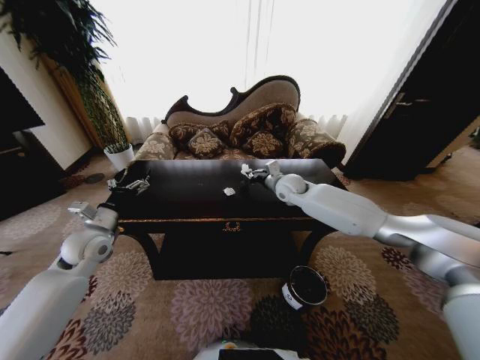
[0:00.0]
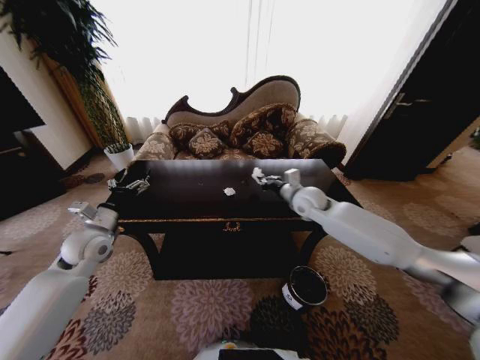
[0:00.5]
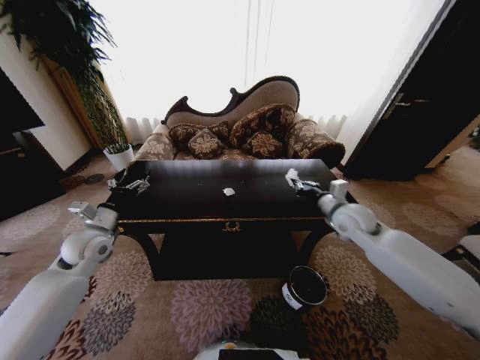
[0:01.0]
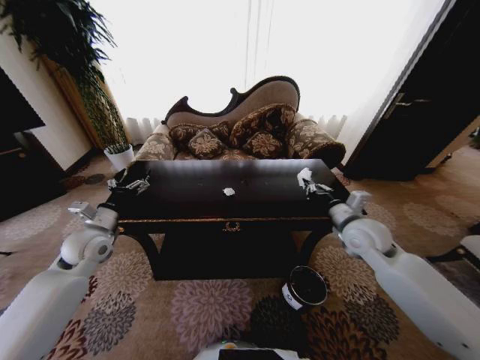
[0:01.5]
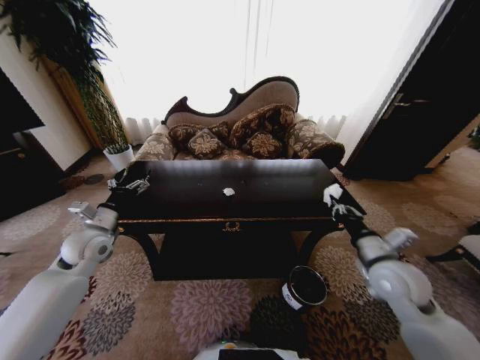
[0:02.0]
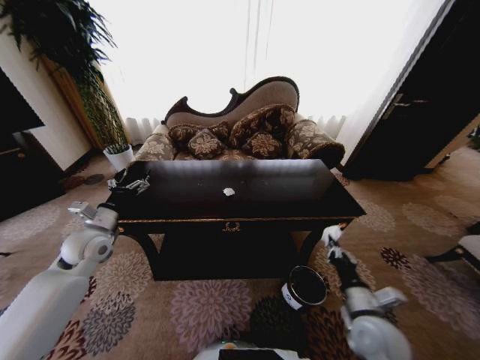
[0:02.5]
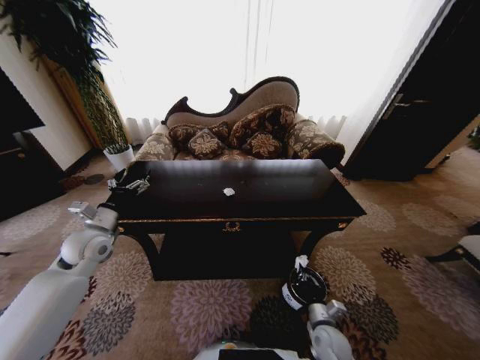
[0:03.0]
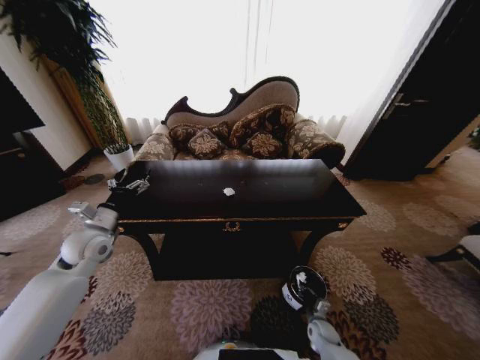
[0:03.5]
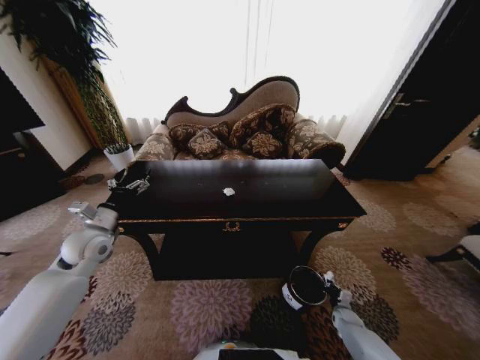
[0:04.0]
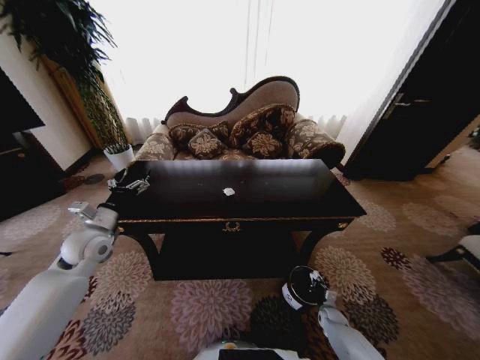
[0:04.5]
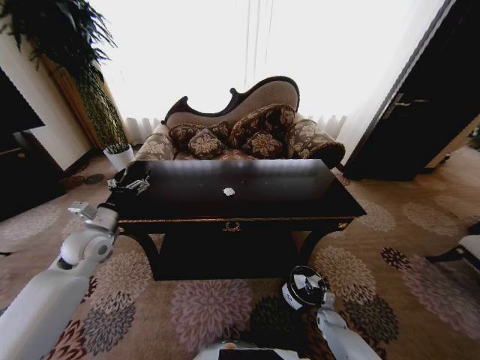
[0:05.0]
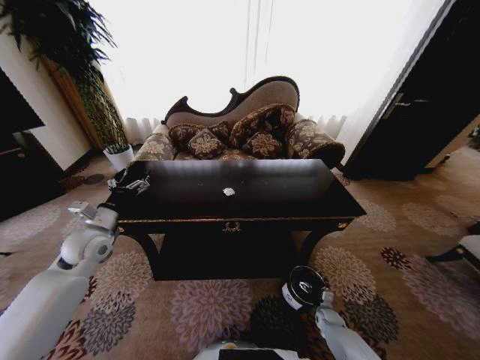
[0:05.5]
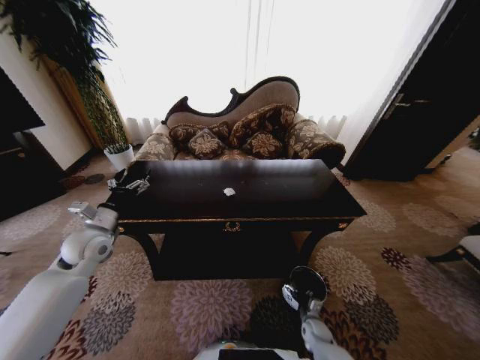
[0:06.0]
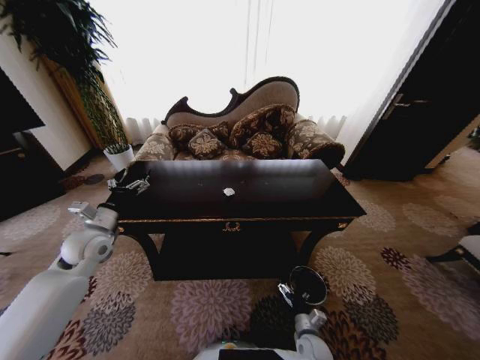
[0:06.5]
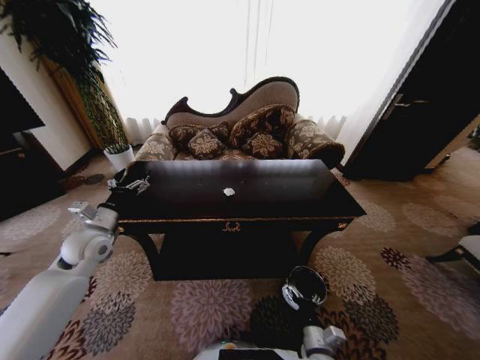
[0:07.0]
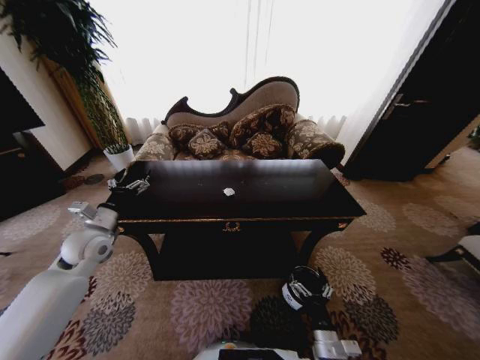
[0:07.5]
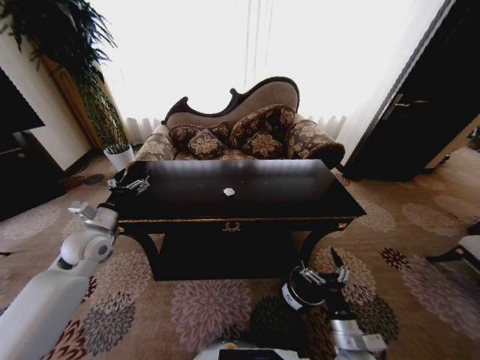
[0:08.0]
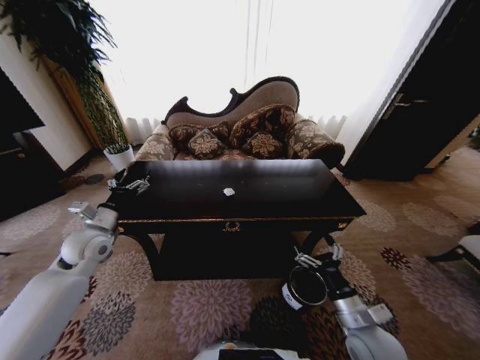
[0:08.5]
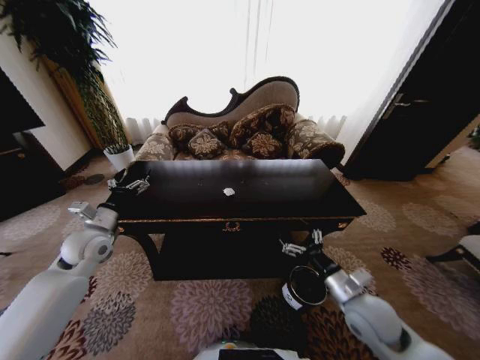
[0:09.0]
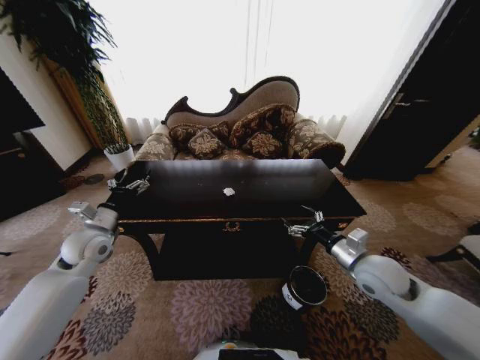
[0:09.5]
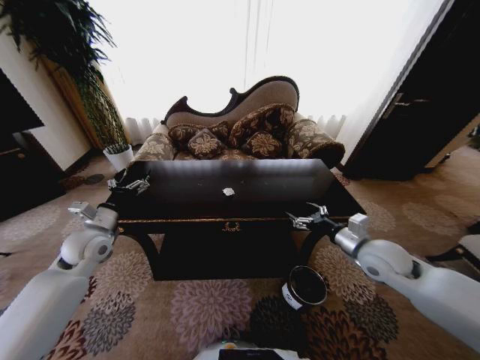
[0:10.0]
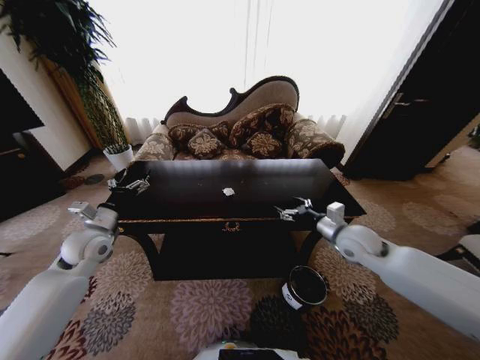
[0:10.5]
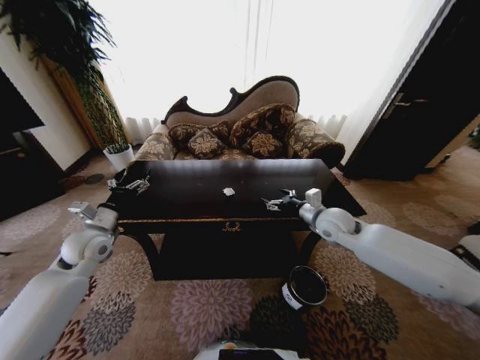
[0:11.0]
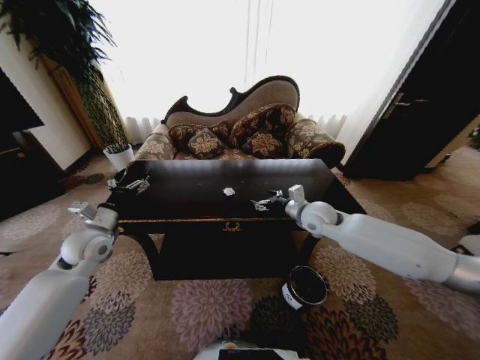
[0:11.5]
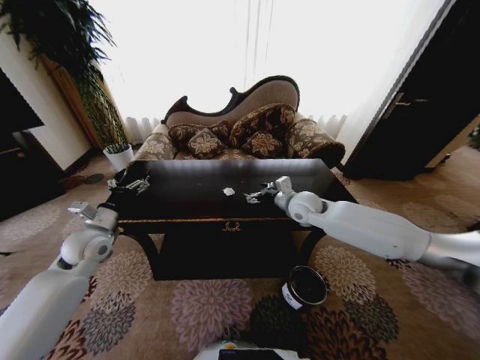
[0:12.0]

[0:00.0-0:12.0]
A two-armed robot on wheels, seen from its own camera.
Task of the whole recording: Move to the front of the table and place the trash on the table into the trash bin.
0:00.0 to 0:02.0: The right gripper goes approximately 35 cm backward and to the right.
0:02.0 to 0:04.0: The right gripper moves downward, some 40 cm.
0:04.0 to 0:06.0: The right gripper heads to the left, covering roughly 15 cm, and opens up.
0:06.0 to 0:08.0: The right gripper heads upward and backward, covering some 25 cm.
0:08.0 to 0:10.0: The right gripper goes about 25 cm forward and upward.
0:10.0 to 0:12.0: The right gripper heads forward and to the left, covering approximately 20 cm.

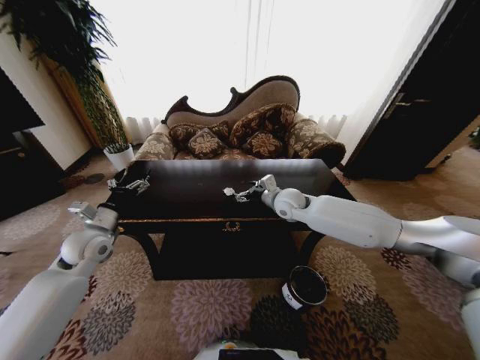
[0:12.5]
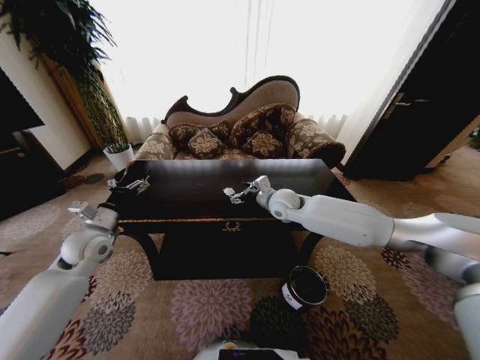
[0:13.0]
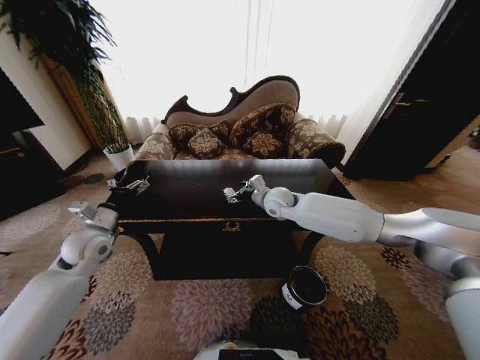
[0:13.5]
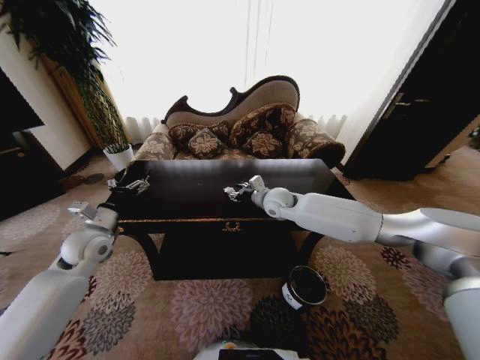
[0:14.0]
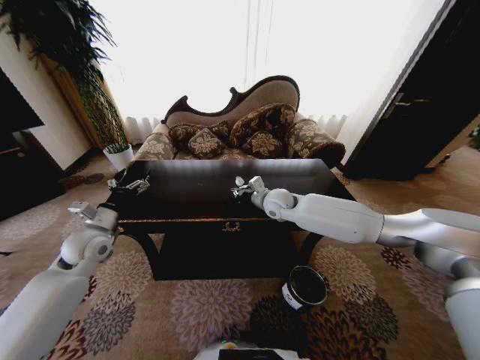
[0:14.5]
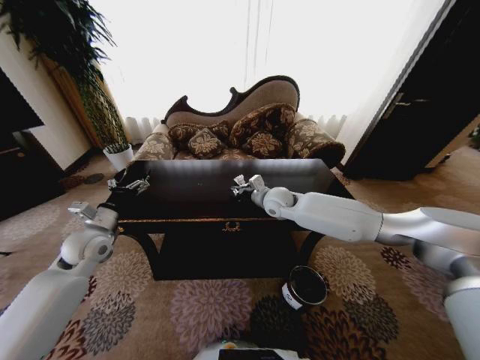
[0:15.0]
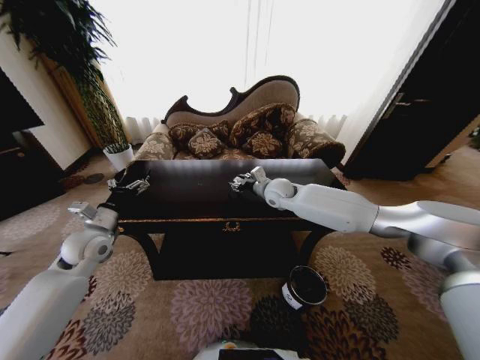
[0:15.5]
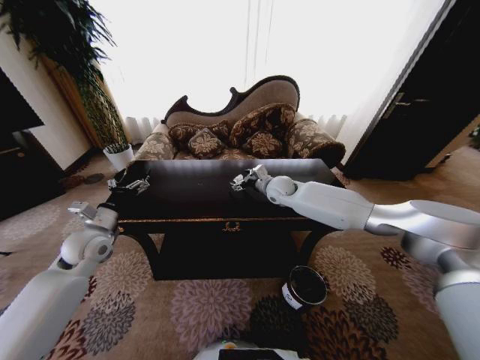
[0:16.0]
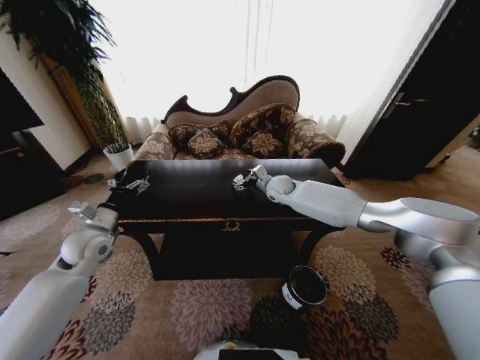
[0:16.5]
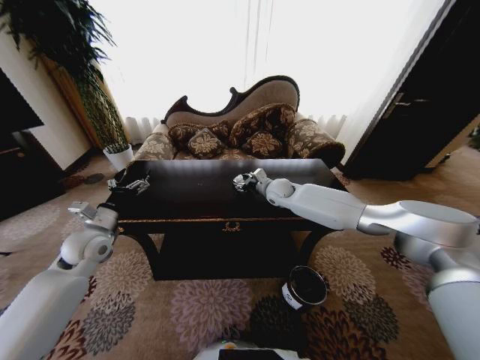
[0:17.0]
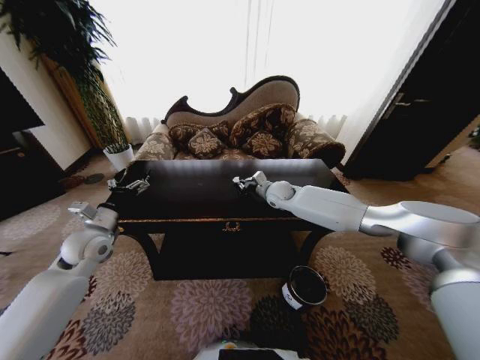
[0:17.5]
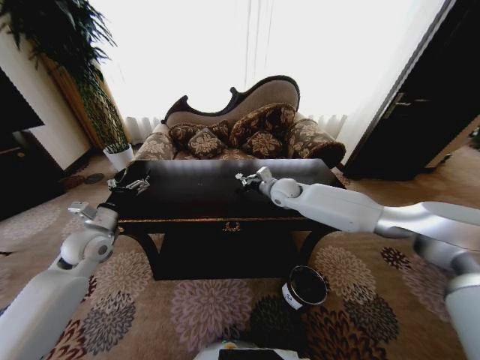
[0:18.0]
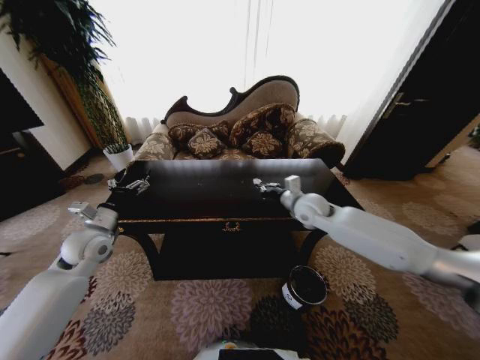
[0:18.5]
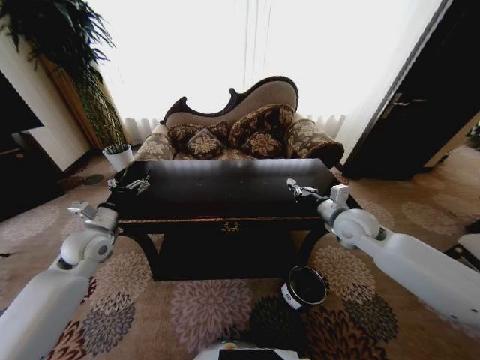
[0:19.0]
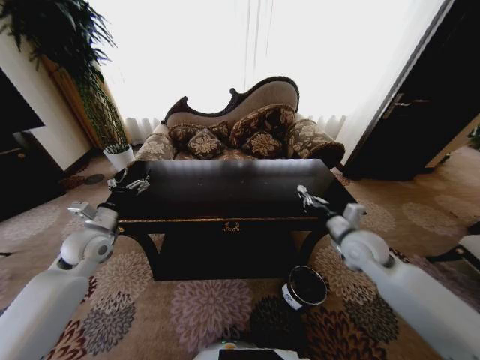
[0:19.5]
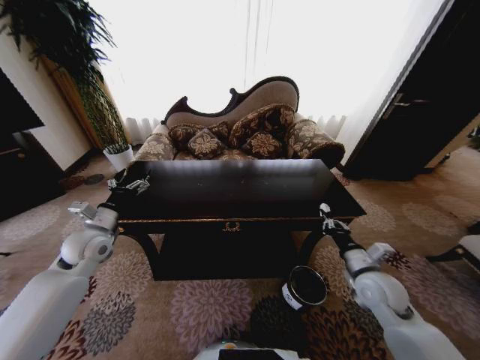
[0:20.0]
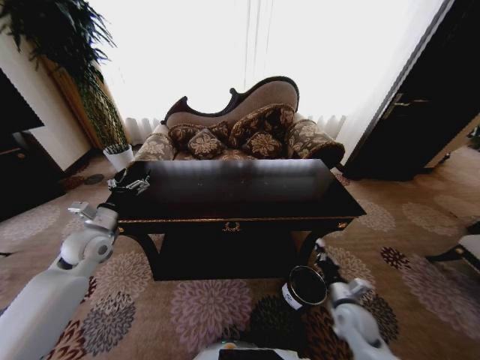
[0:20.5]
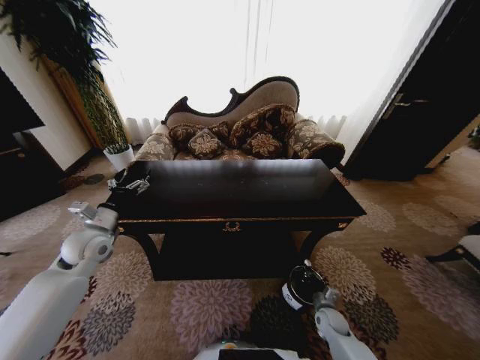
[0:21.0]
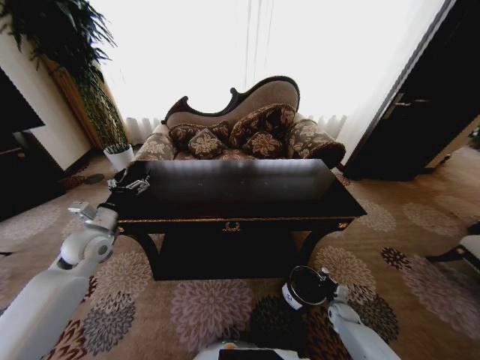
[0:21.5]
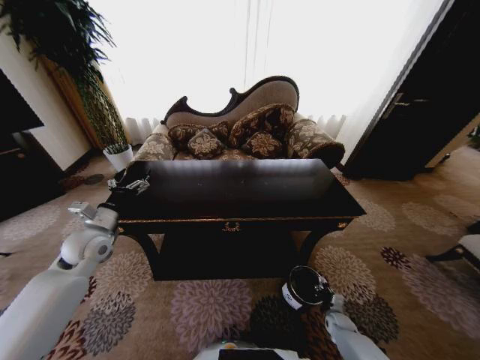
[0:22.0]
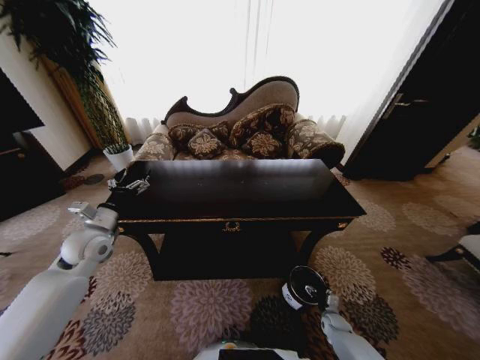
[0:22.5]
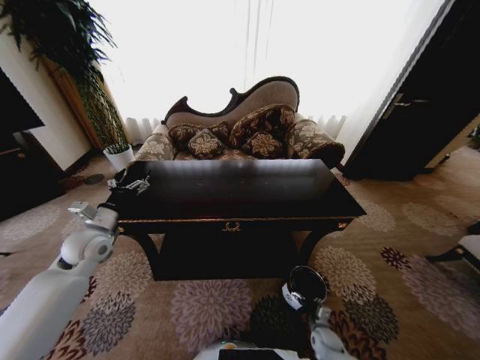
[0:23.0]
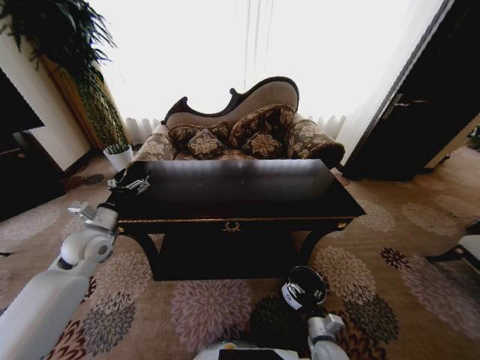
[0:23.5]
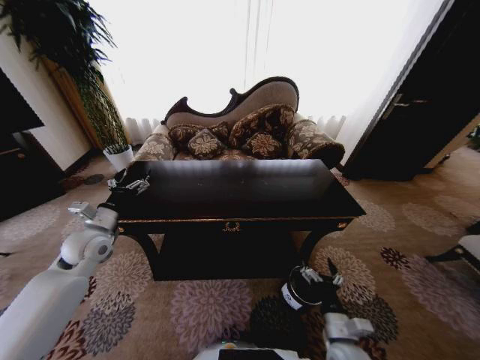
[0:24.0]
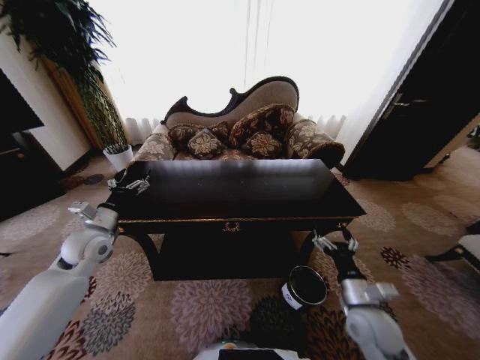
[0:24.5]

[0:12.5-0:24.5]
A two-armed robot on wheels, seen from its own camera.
Task of the whole recording: Move to the front of the table and place the trash on the table into the trash bin.
0:12.5 to 0:14.5: The right gripper closes.
0:14.5 to 0:16.5: The right gripper moves forward, roughly 10 cm, and opens.
0:16.5 to 0:18.5: The right gripper heads backward and to the right, covering roughly 15 cm, and closes its fingers.
0:18.5 to 0:20.5: The right gripper travels backward, downward and to the right by some 35 cm.
0:20.5 to 0:22.5: The right gripper is displaced downward by some 20 cm, and opens up.
0:22.5 to 0:24.5: The right gripper is displaced upward by some 30 cm.

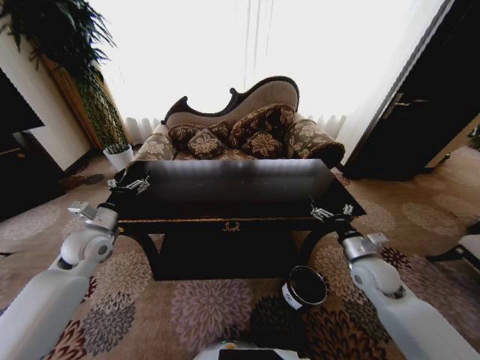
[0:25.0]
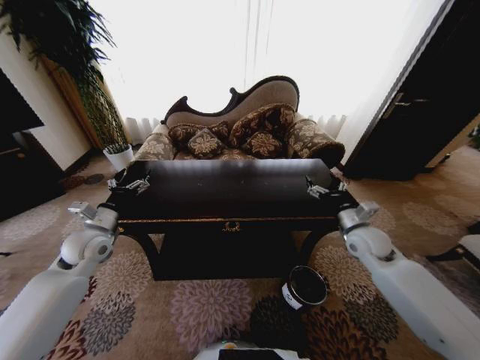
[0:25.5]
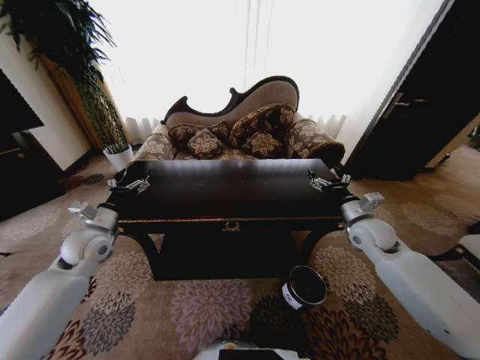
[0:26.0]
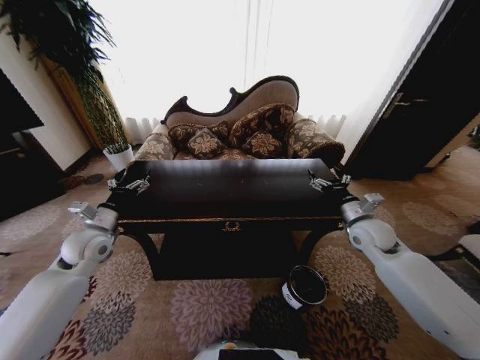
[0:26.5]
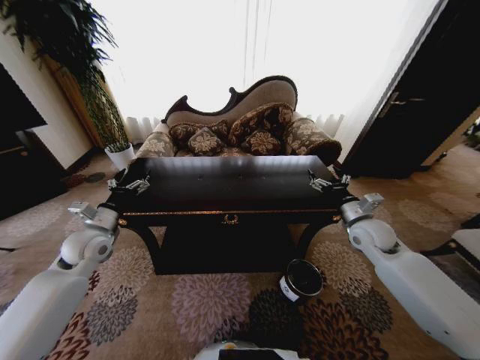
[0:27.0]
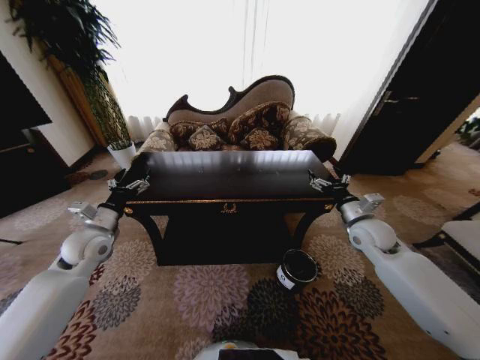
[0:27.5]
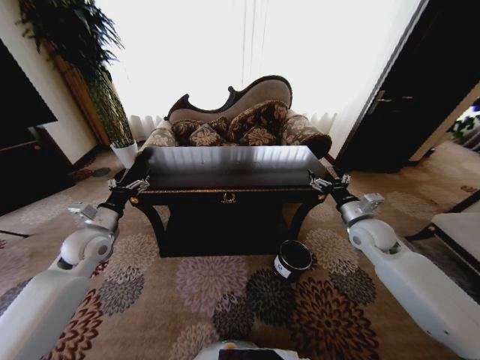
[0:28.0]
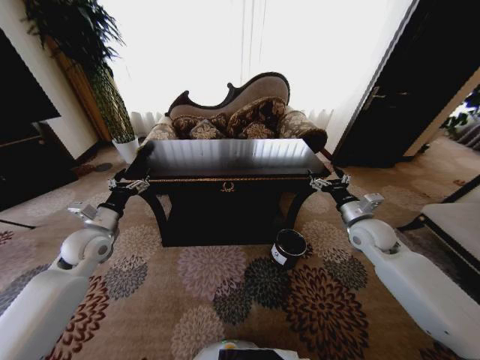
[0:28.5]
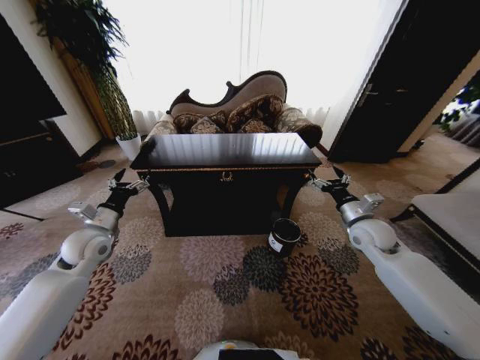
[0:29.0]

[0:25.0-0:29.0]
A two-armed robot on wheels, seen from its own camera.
Task of the whole recording: Move to the front of the table and place the trash on the table into the trash bin.
0:25.0 to 0:27.0: The right gripper is displaced forward and upward by roughly 10 cm.
